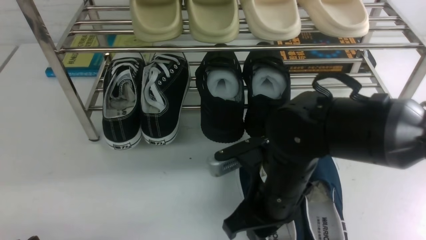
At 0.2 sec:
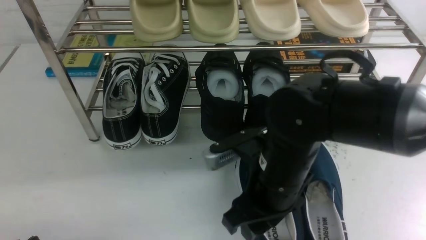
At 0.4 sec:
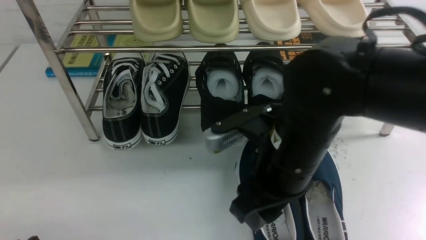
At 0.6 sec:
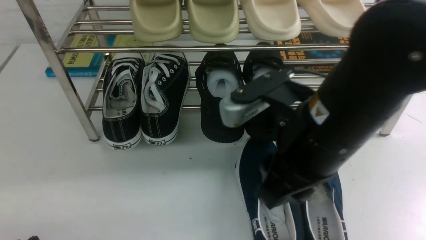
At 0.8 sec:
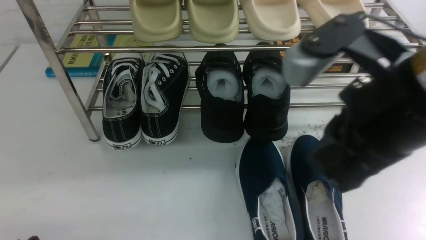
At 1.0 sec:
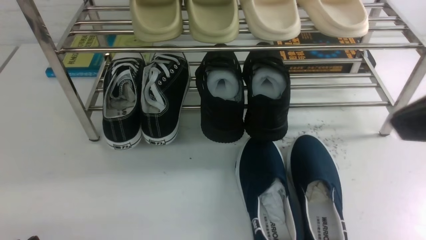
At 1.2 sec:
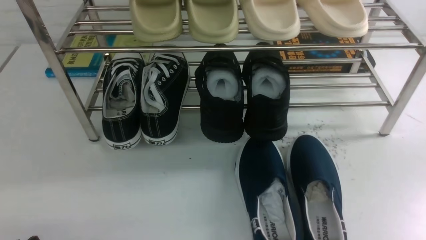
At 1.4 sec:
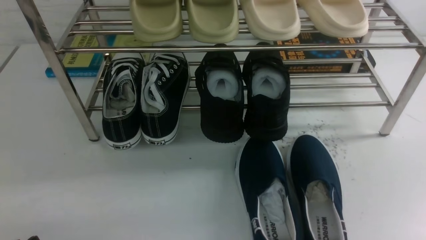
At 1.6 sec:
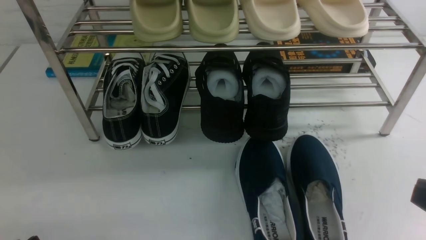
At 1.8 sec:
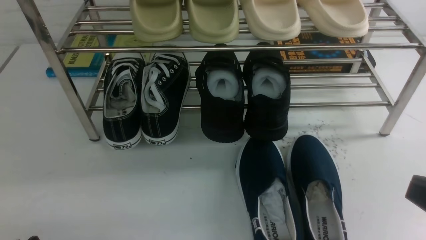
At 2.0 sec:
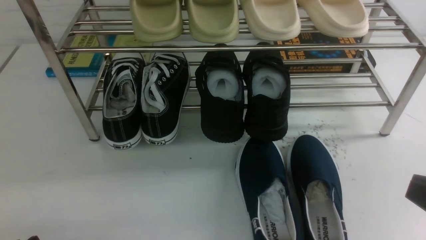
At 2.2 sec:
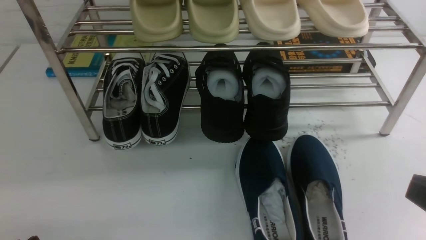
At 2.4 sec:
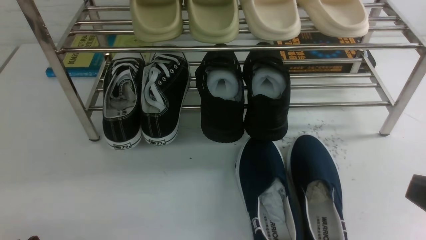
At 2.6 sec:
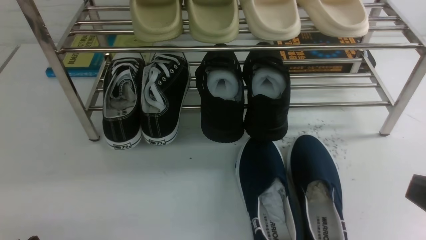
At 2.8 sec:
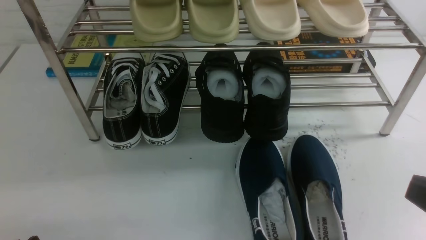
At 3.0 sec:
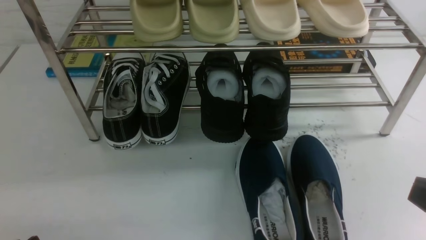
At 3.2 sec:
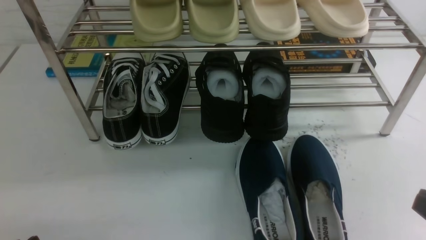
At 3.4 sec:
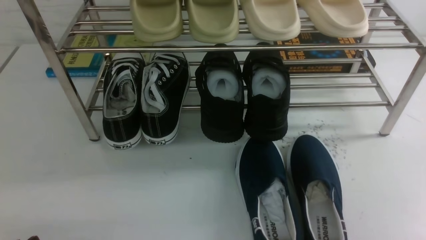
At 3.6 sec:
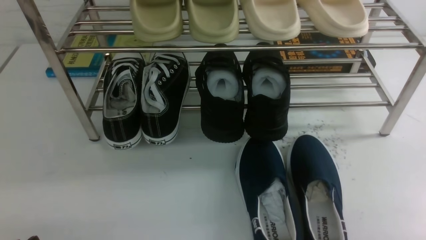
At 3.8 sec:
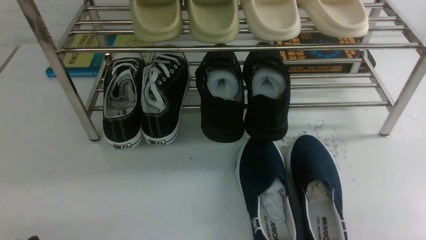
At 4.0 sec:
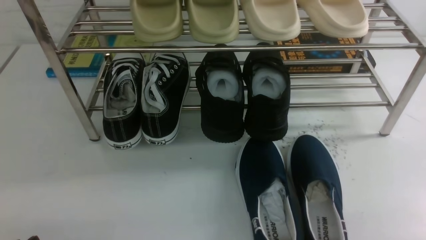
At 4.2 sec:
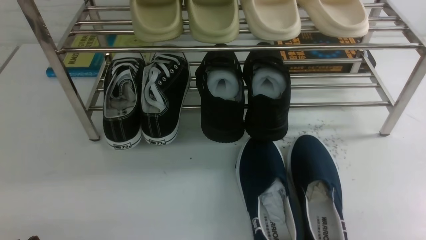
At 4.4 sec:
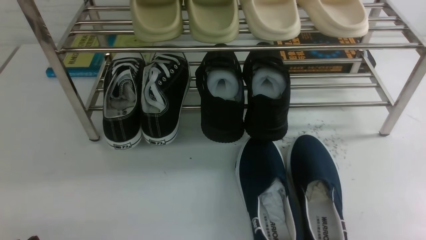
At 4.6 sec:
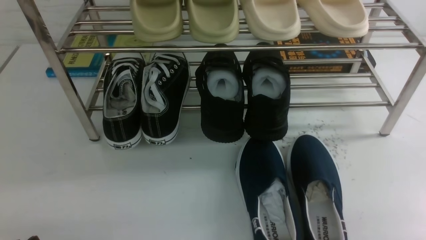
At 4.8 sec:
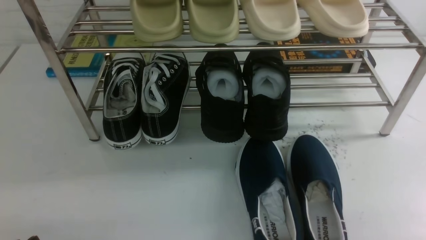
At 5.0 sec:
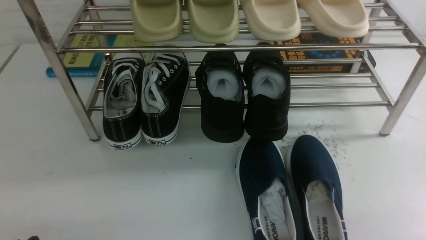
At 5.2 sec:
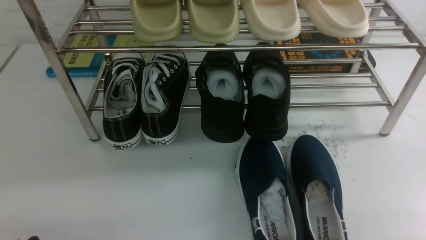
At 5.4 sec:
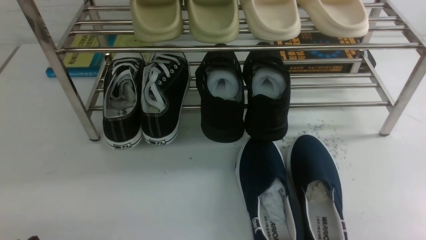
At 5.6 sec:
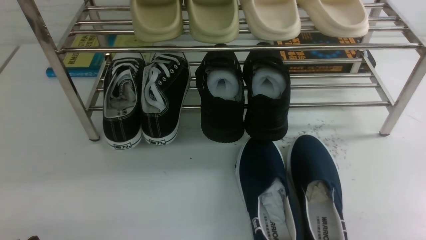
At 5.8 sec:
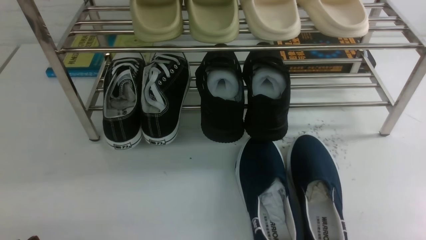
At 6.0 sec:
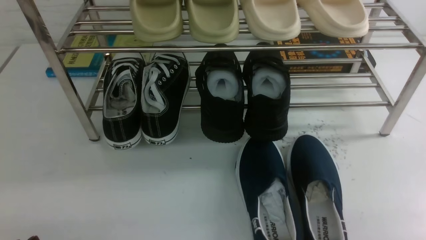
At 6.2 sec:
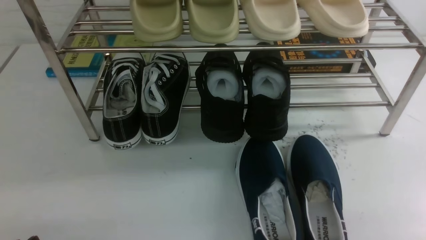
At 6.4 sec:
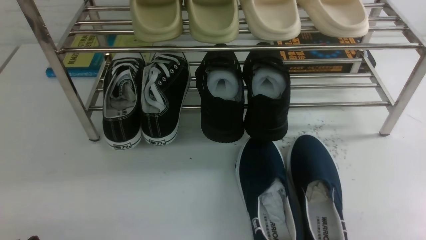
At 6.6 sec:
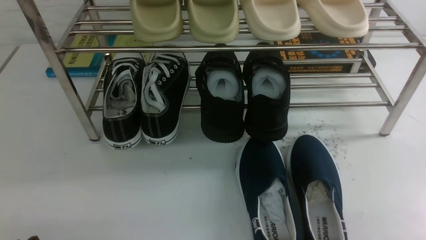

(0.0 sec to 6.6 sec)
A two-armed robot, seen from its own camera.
0.0 sec - 1.6 sec: The right gripper travels to the right, backward and upward by some 30 cm, and closes.
5.0 sec - 6.6 sec: The two grippers keep their place.

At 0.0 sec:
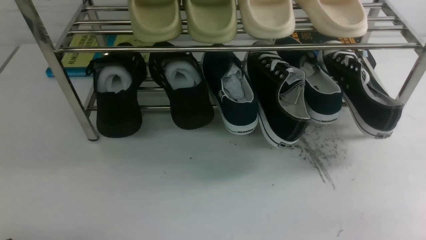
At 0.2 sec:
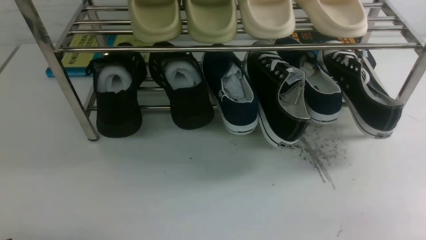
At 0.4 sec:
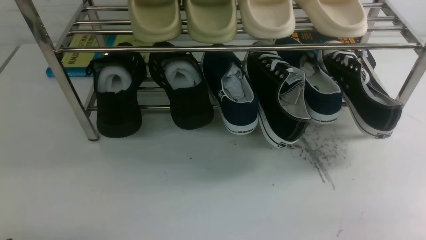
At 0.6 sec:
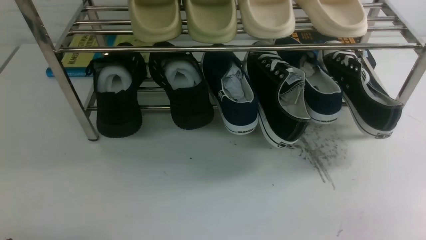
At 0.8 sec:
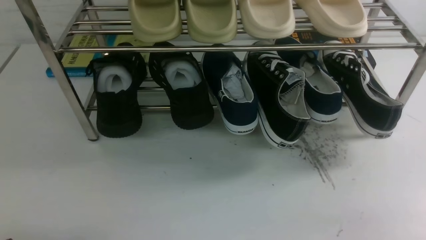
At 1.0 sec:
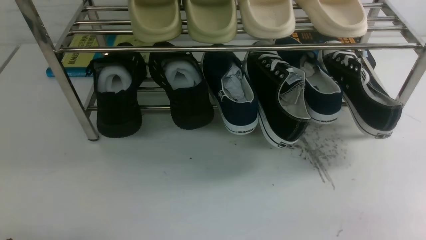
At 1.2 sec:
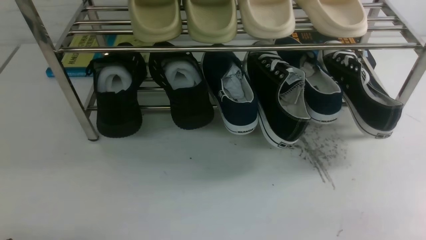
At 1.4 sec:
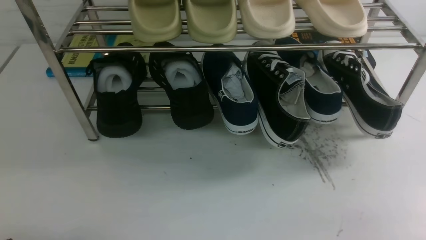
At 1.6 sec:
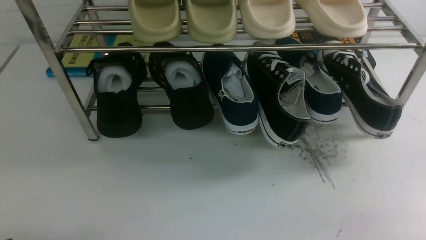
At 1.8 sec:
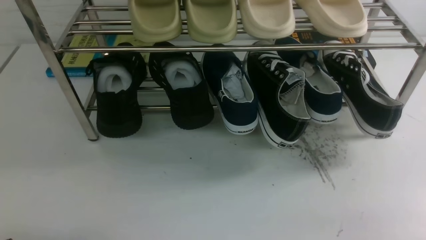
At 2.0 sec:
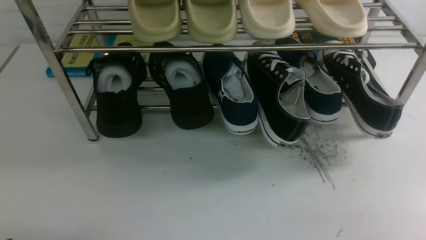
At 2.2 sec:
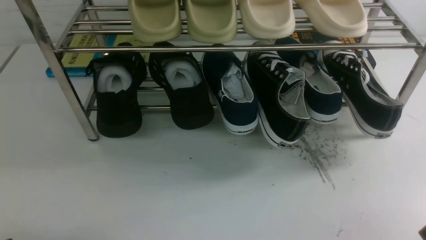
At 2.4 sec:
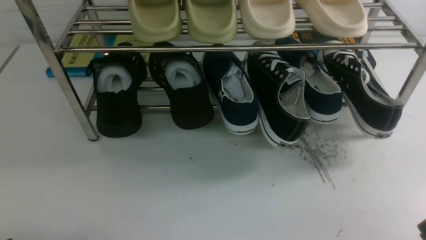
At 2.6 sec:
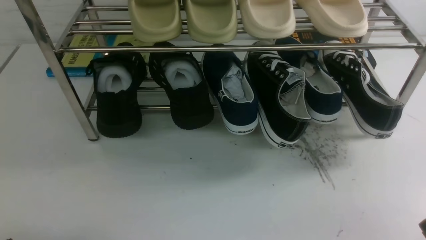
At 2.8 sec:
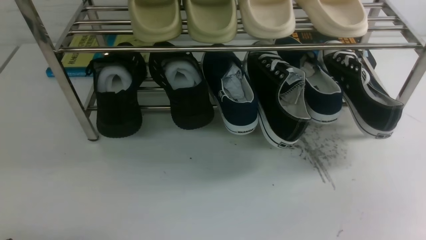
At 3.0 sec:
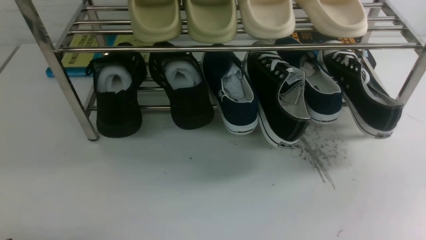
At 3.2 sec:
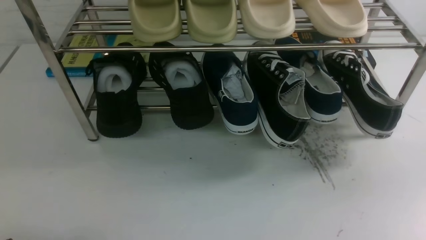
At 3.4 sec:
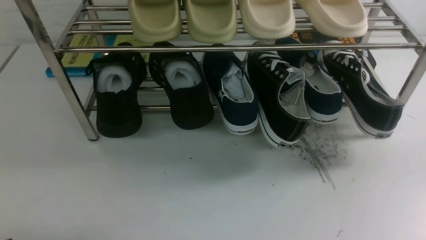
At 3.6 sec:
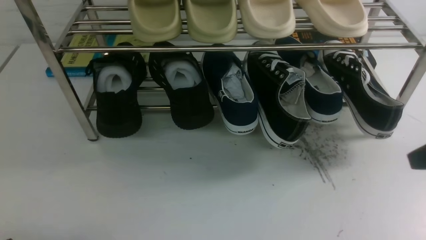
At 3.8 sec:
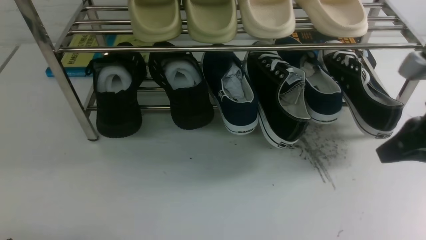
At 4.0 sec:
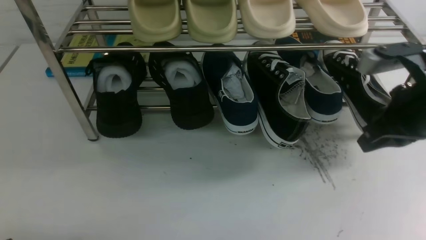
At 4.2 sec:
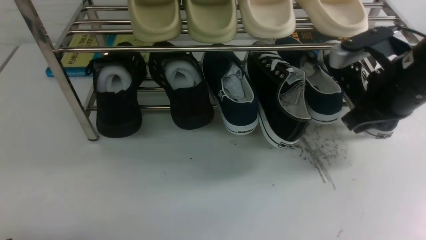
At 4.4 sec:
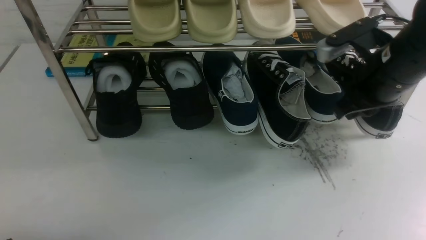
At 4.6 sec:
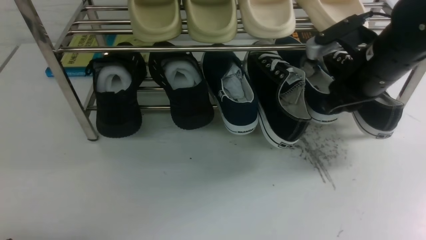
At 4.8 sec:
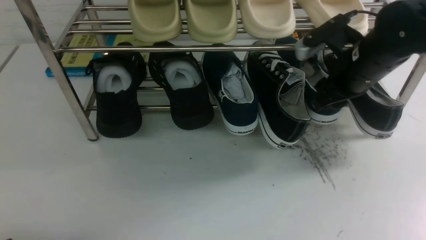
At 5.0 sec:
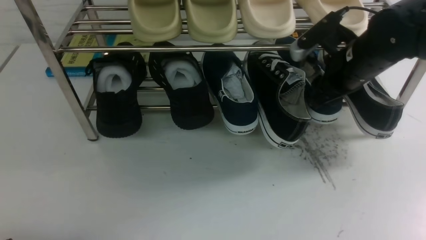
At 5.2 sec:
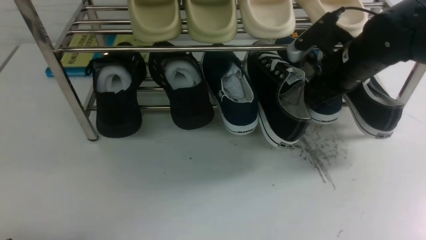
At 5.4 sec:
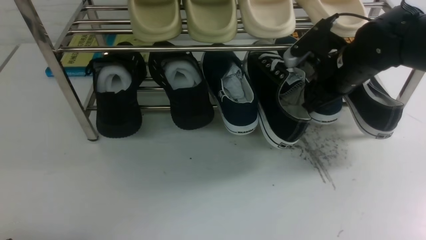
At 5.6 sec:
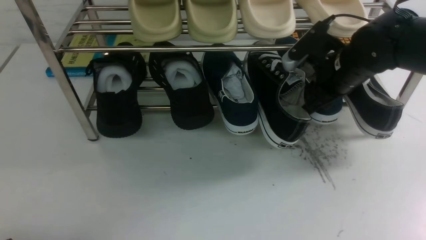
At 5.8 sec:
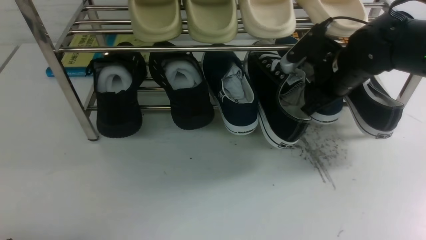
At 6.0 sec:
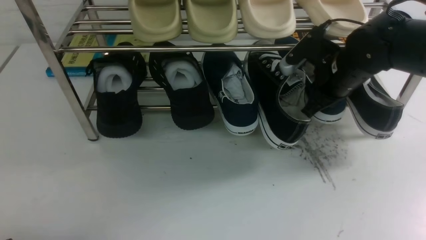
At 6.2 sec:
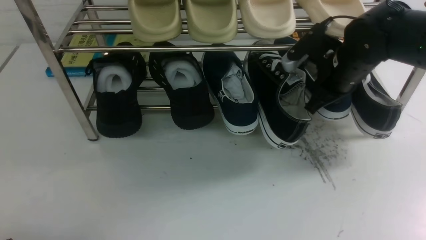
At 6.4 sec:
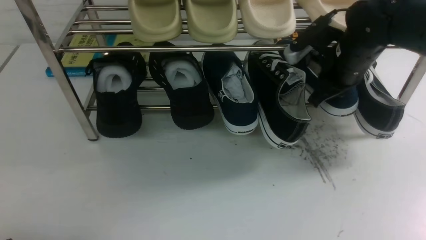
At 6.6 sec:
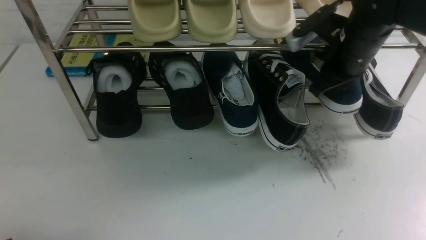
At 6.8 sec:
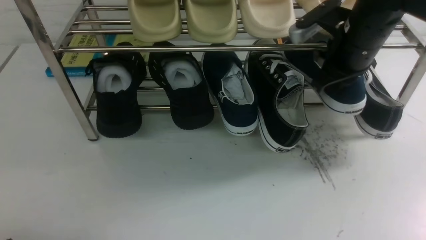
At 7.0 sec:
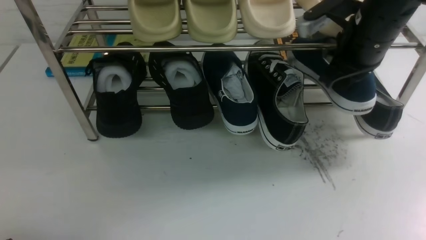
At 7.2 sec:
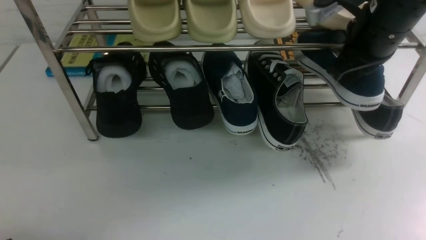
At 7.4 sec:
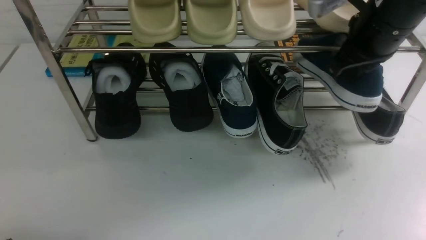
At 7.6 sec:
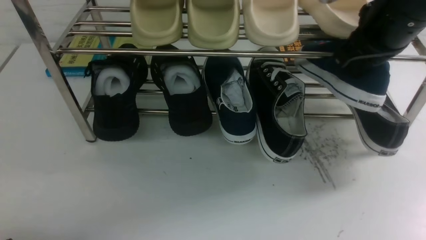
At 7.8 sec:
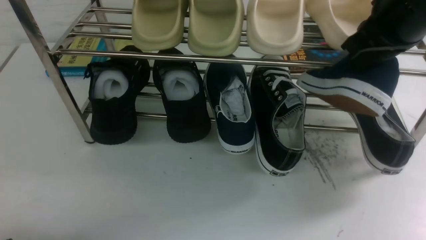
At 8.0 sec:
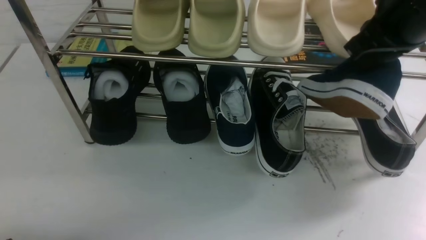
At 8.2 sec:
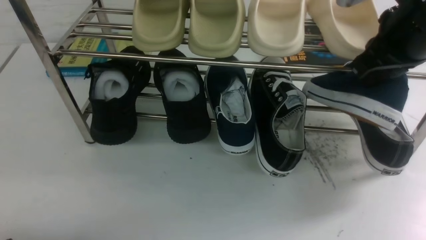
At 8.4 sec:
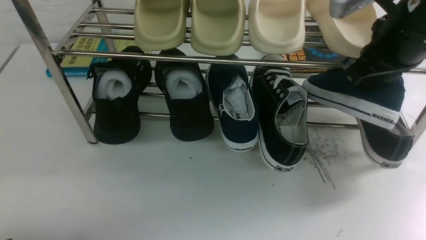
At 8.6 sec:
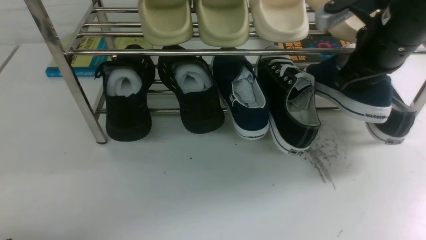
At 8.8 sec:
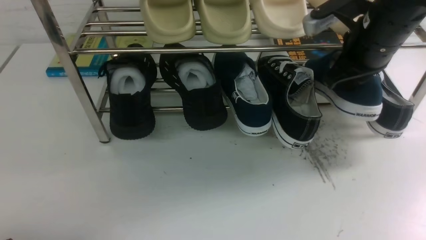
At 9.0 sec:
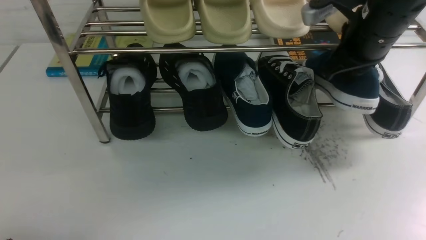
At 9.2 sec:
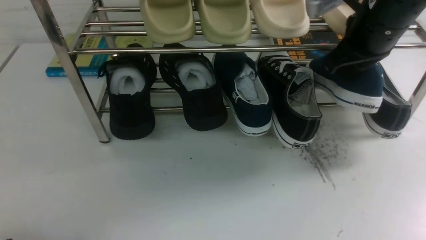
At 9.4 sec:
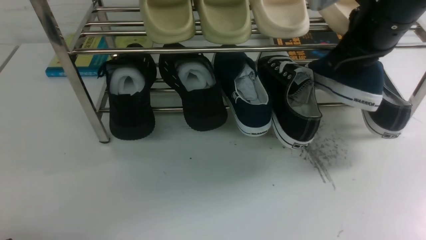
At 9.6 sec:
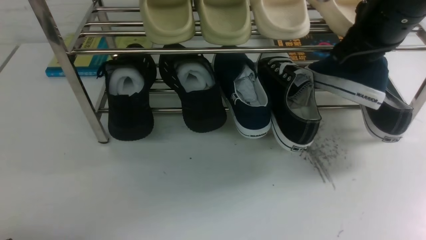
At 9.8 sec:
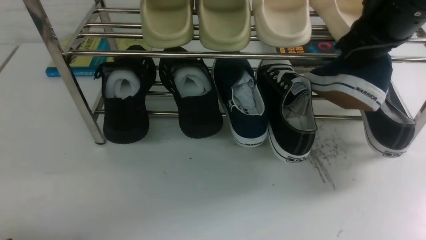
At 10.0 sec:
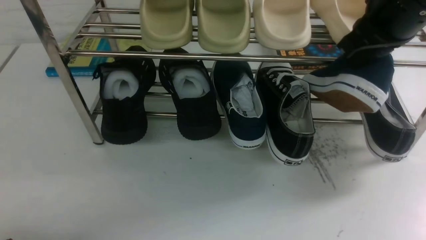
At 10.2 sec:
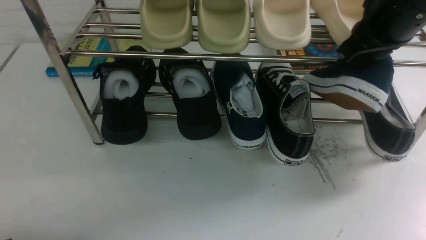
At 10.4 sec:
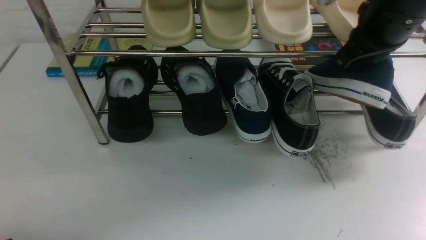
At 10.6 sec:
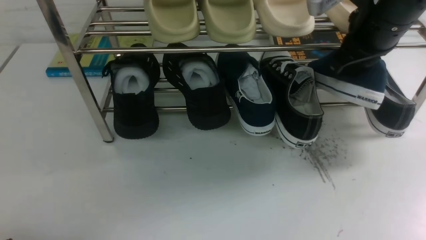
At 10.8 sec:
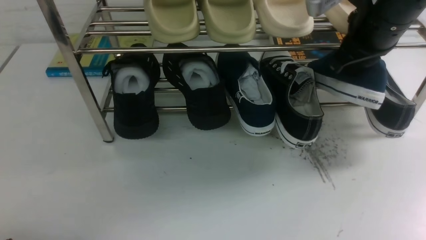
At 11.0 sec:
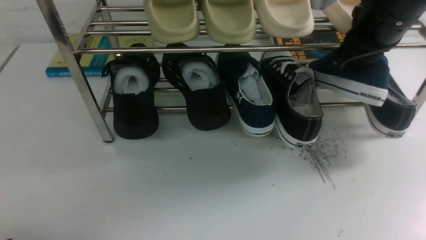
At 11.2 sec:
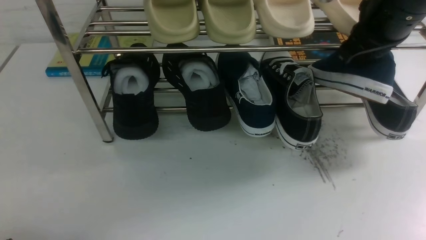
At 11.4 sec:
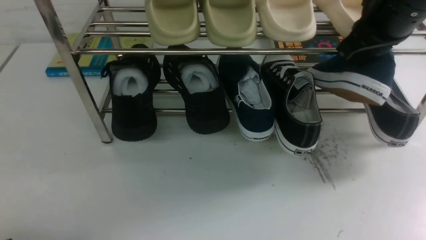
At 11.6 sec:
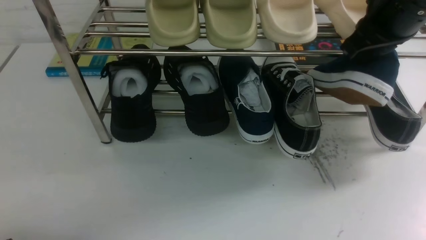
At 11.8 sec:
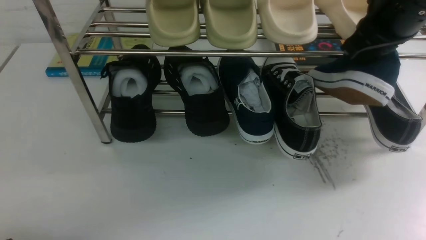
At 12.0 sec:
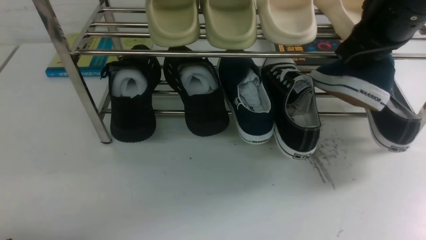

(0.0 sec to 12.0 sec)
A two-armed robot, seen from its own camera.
Step, 0.0 sec - 6.8 sec: use the right arm to clamp a shoe on the right side of the shoe rack.
0.0 sec - 1.6 sec: Both grippers stay about where they are.
3.0 sec - 4.4 sec: The right gripper shifts some 25 cm forward.
4.4 sec - 6.0 sec: The right gripper is displaced forward and downward by about 10 cm, and opens, then closes again.
6.0 sec - 7.6 sec: The right gripper heads upward and backward, covering about 15 cm.
7.6 sec - 9.0 sec: The right gripper shifts by approximately 5 cm.
10.4 sec - 12.0 sec: The grippers make only small movements.
